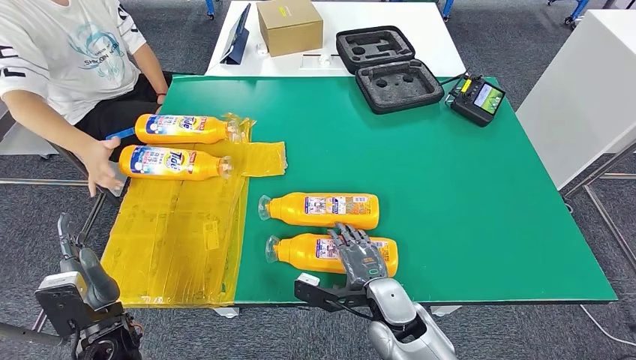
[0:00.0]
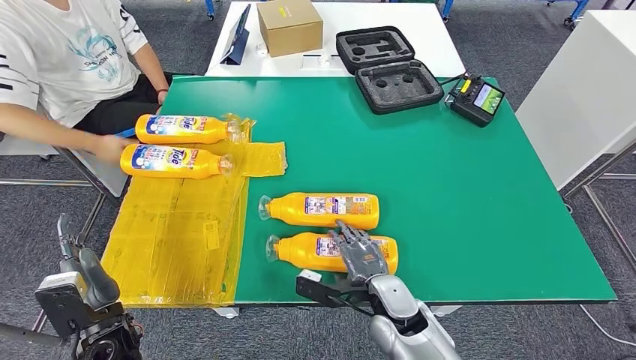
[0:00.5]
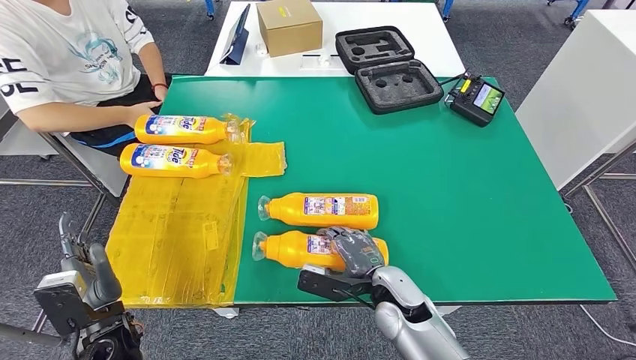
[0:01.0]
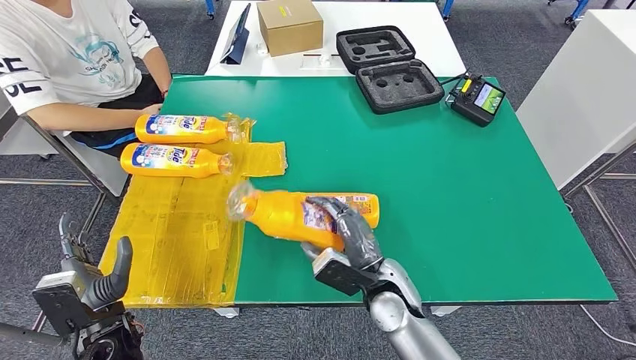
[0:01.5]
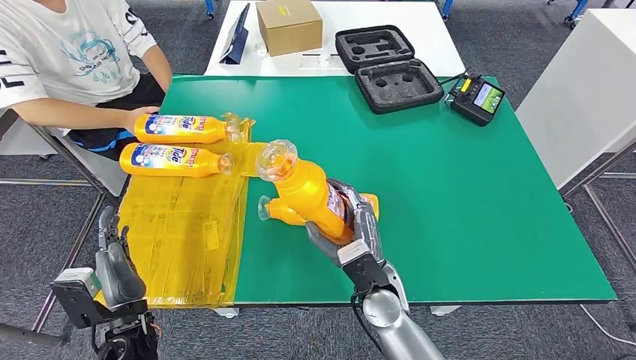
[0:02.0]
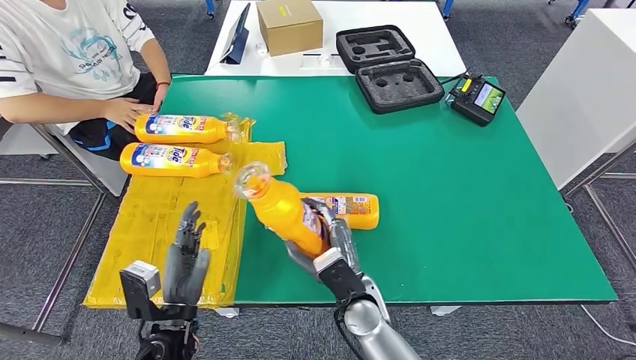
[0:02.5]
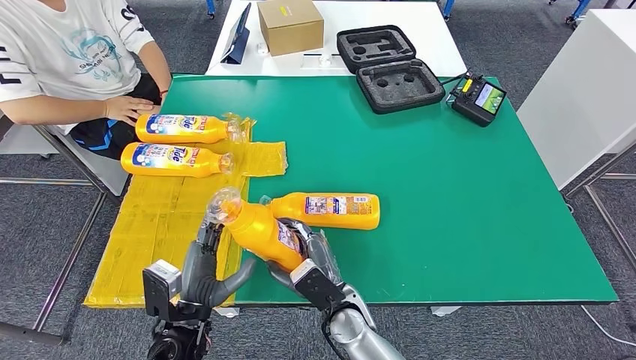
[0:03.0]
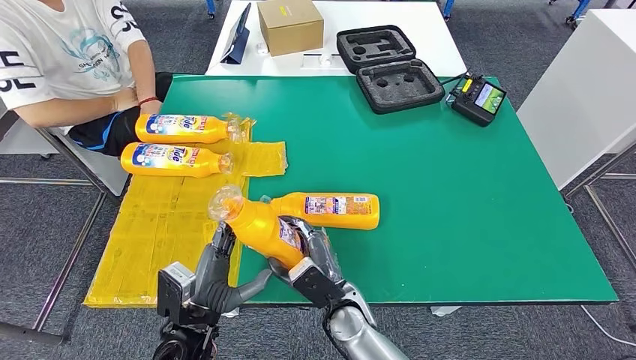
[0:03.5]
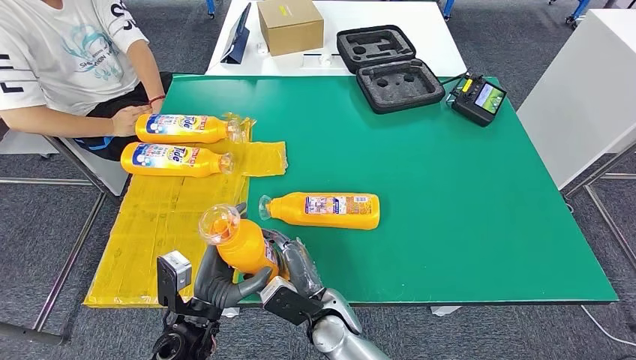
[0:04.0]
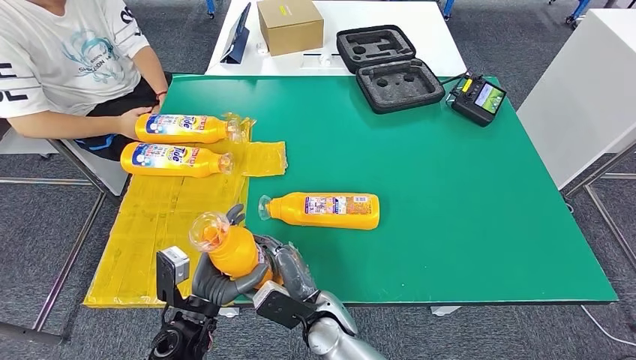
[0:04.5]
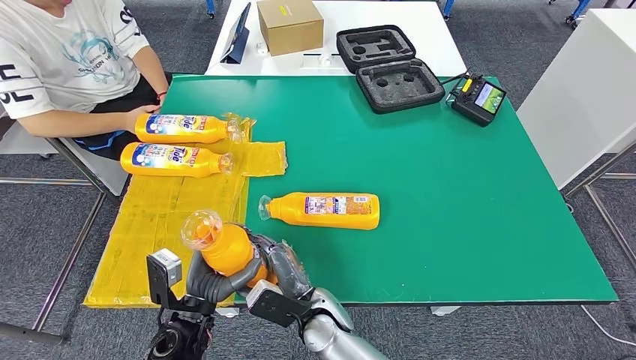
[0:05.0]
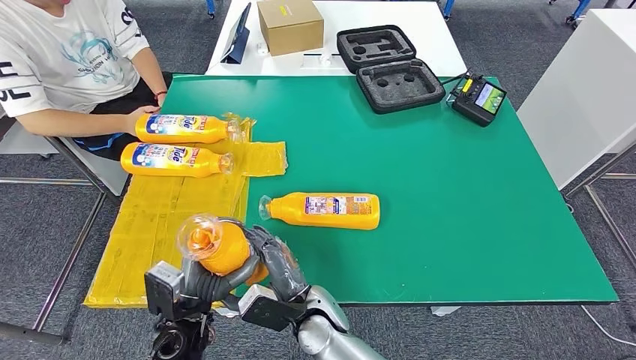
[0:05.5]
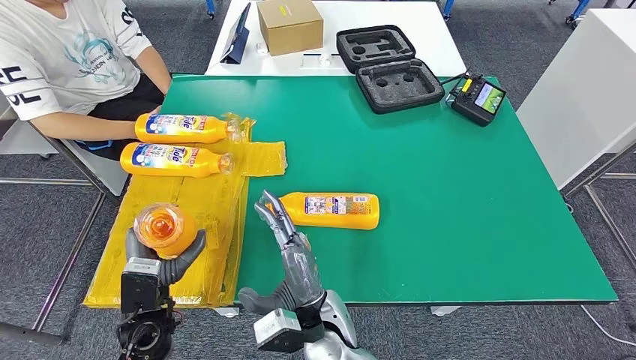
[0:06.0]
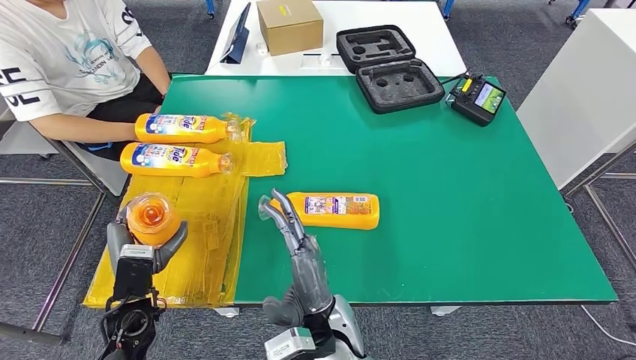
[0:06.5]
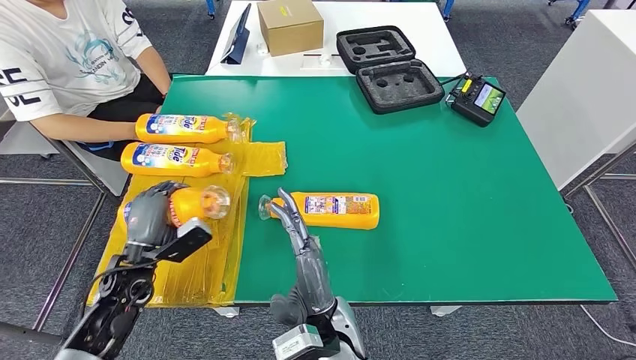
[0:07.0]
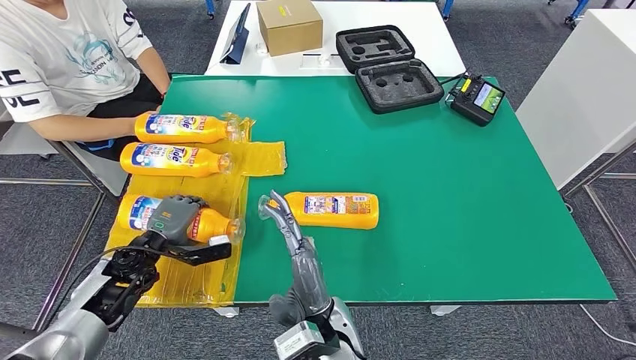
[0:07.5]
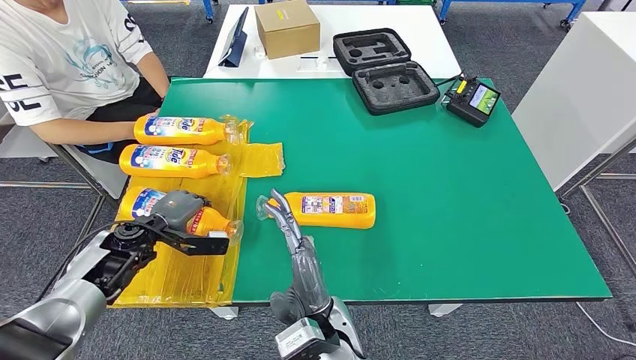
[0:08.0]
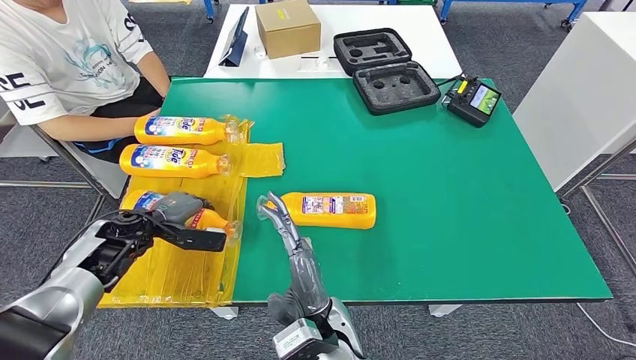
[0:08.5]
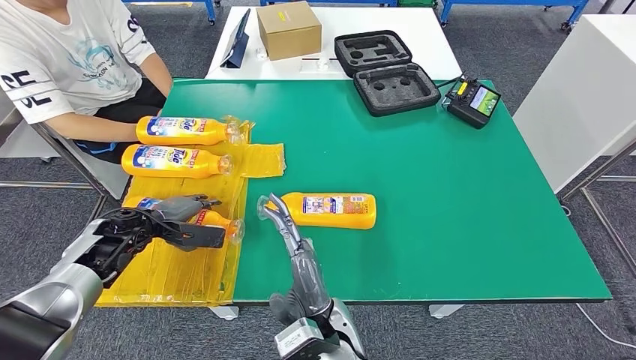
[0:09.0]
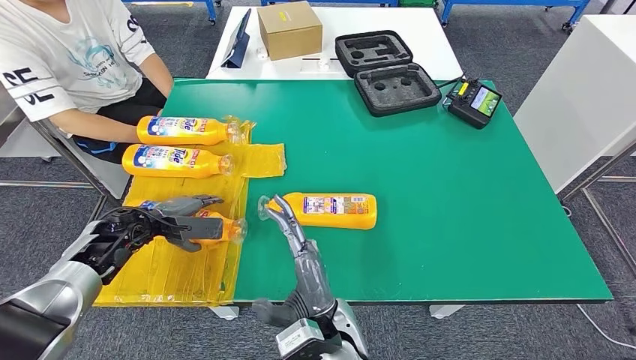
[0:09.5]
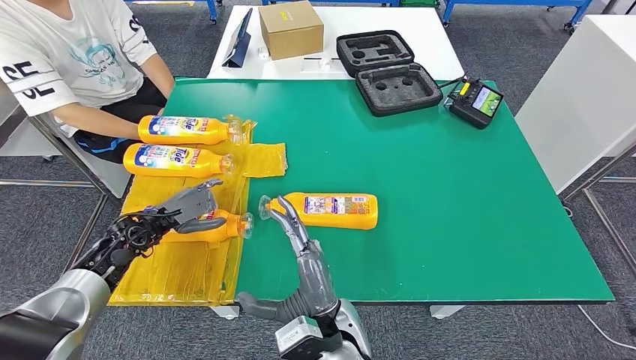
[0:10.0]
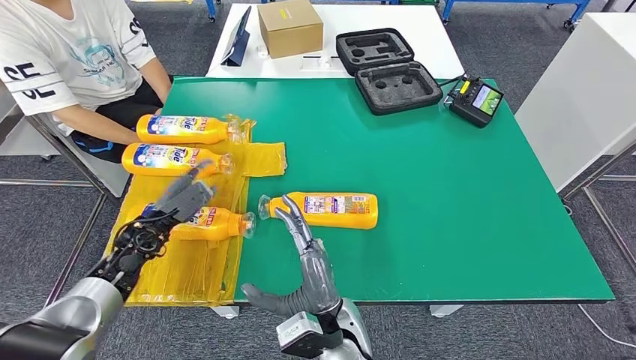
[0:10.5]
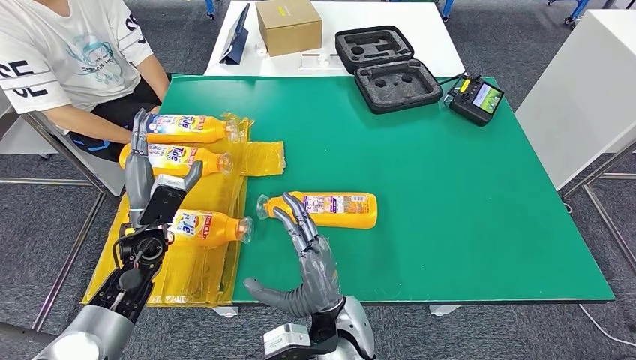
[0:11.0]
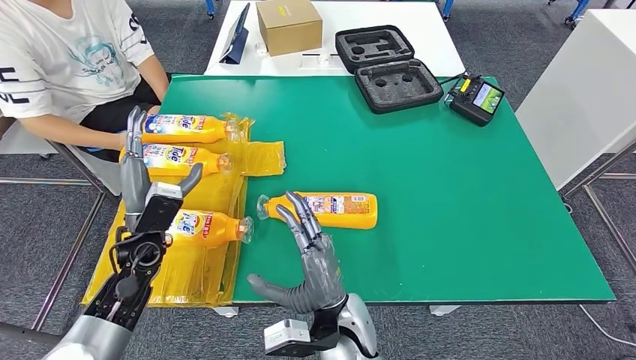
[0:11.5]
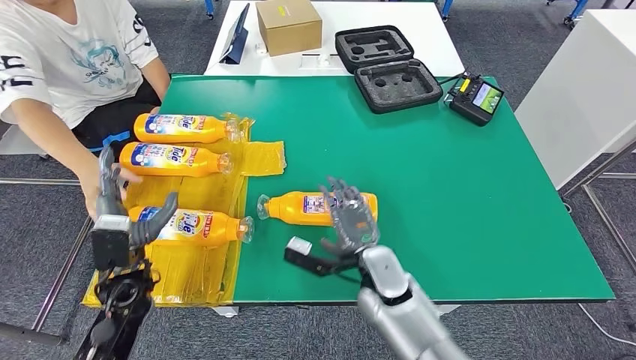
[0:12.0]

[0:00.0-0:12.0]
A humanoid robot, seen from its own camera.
Step, 0:00.0 to 0:03.0: Pick up the fast-moving consumer goods bottle from the table.
Step, 0:03.5 to 0:09.5: Flip the fast-moving consumer goods bottle to the front side.
0:04.0 to 0:06.0: The left hand heads to the left, covering about 5 cm. Meanwhile the right hand travels upward by about 5 cm.

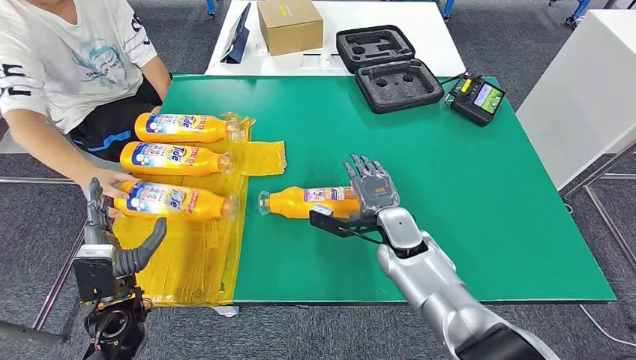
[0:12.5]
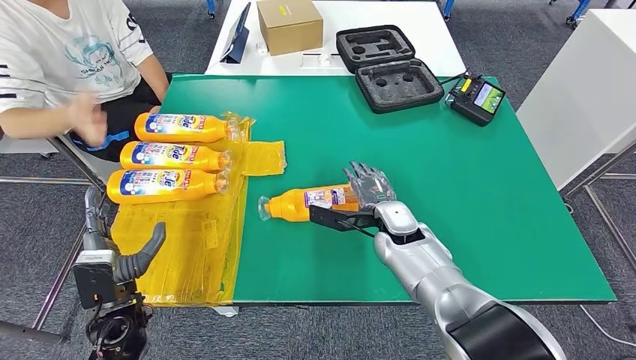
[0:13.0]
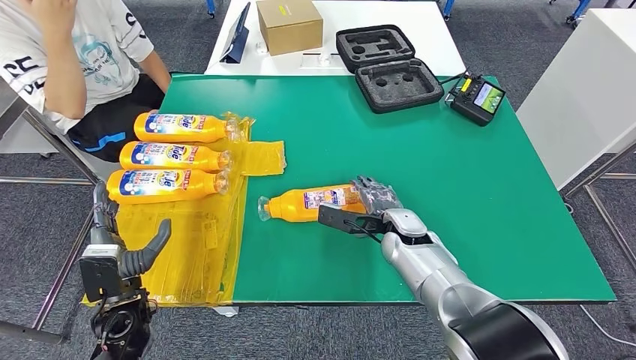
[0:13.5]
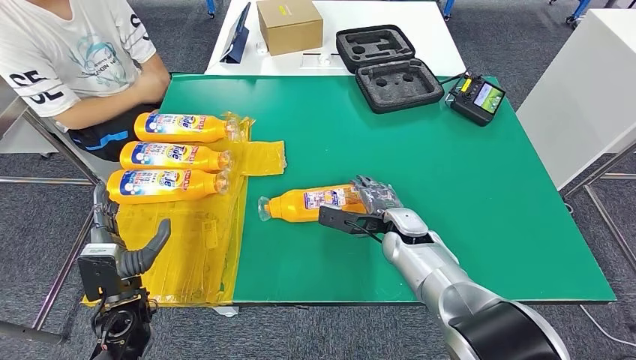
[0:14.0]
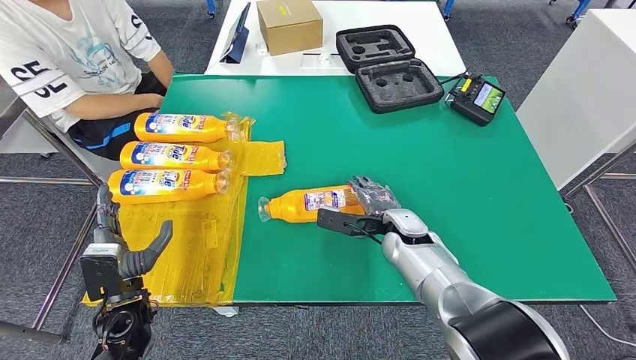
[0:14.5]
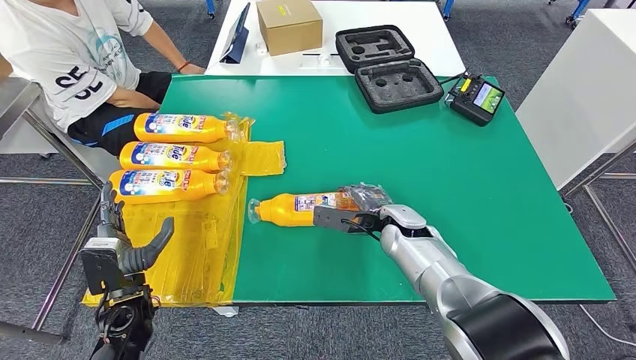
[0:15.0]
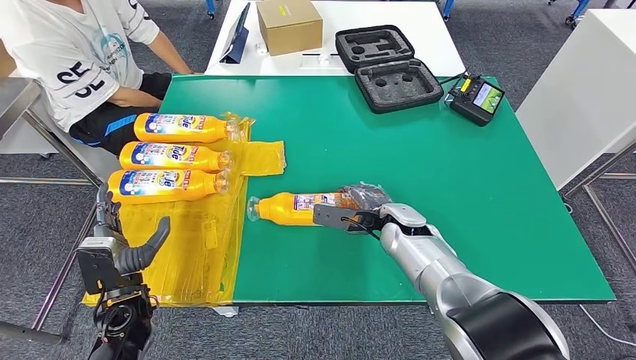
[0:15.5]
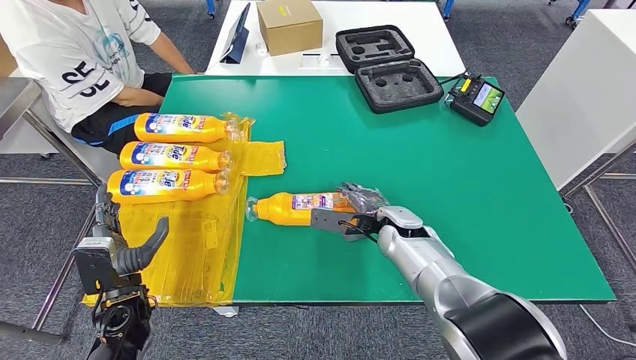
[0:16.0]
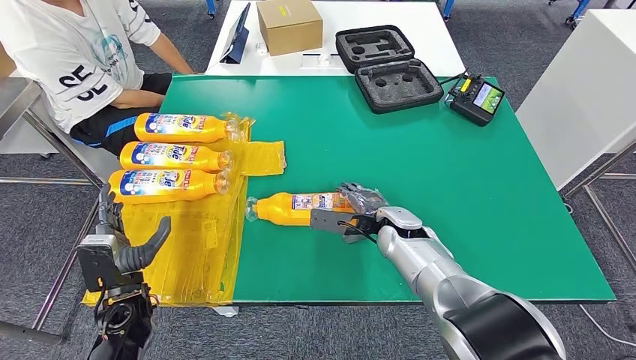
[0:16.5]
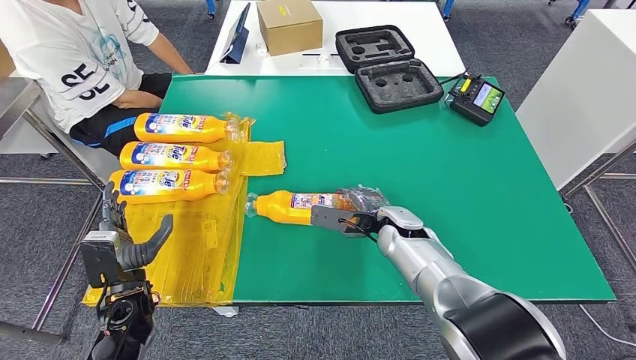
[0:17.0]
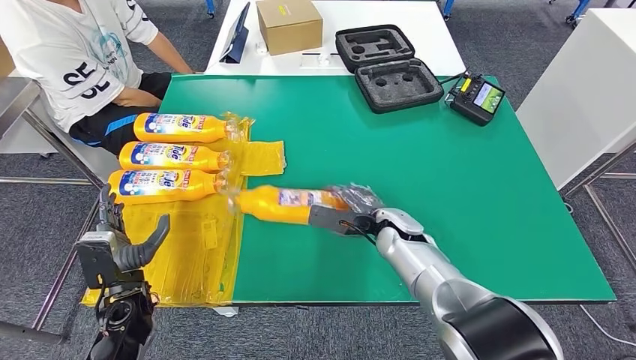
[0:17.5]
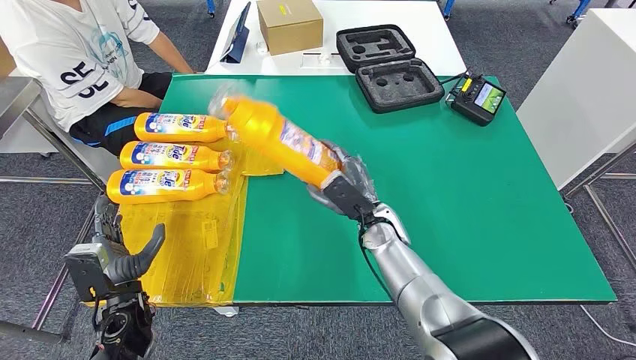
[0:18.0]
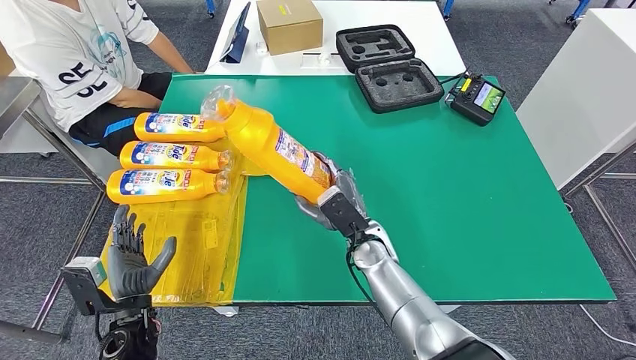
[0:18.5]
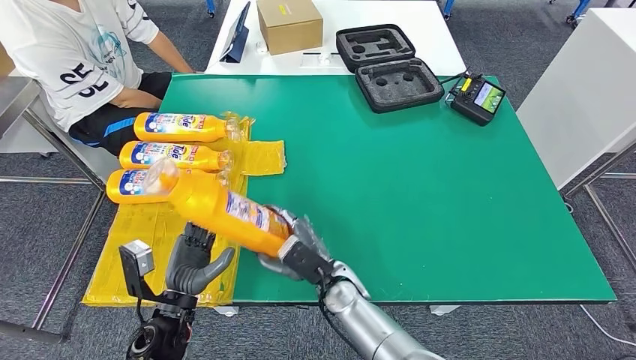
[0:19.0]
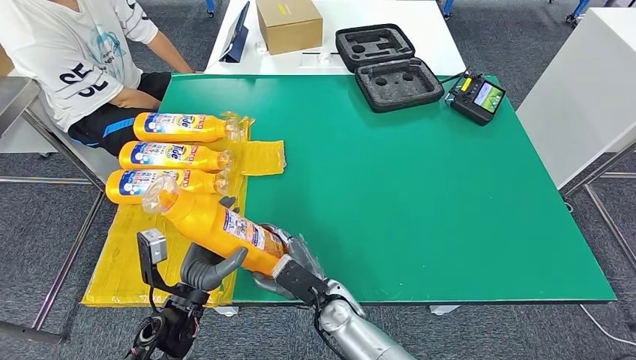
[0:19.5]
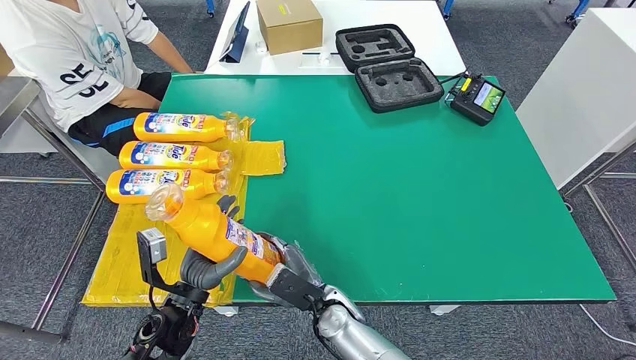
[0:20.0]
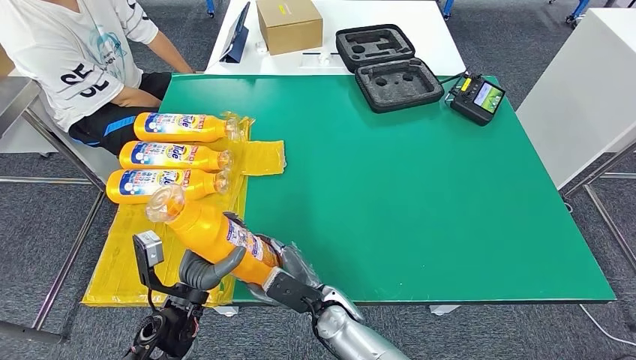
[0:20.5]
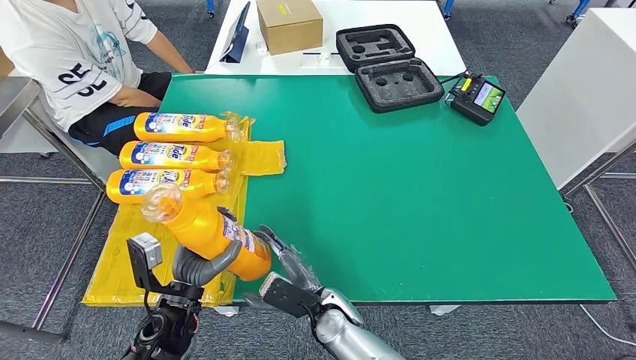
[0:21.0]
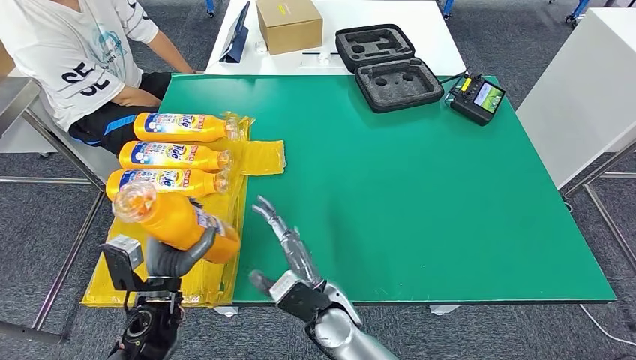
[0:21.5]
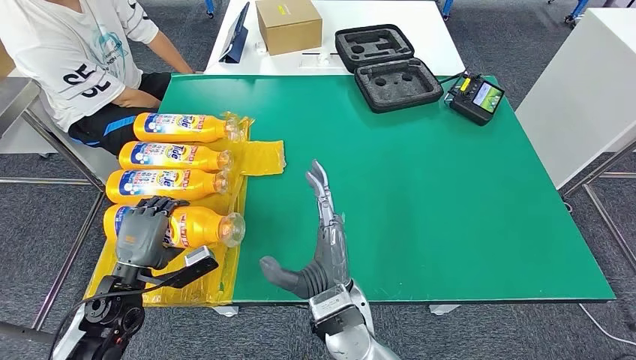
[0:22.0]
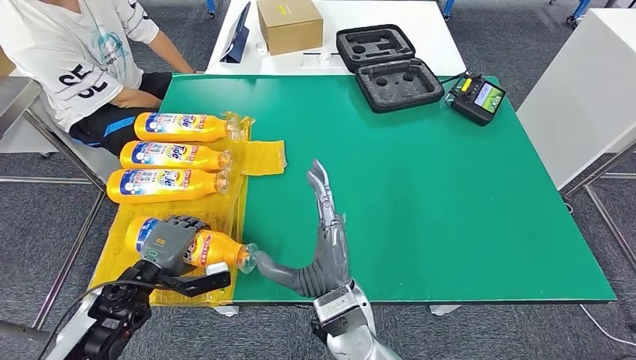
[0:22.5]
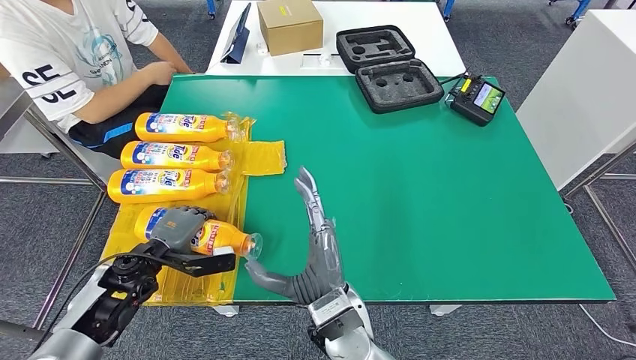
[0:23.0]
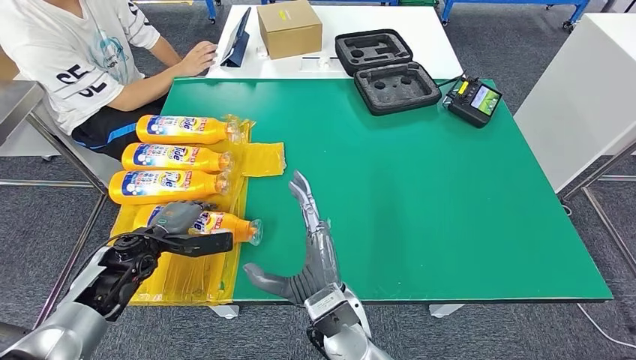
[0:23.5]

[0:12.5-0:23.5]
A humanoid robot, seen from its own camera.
Step, 0:12.5 to 0:18.5: Pick up the fast-moving consumer goods bottle from the table.
Step, 0:19.0 to 0:23.5: Flip the fast-moving consumer goods bottle to the front side.
0:14.5 to 0:16.0: The hands stay close to where they were, moving slightly.
0:18.0 to 0:20.0: The left hand moves to the right, some 10 cm. The right hand goes about 15 cm backward, to the left and downward.
0:20.0 to 0:21.5: The right hand goes some 5 cm upward.
